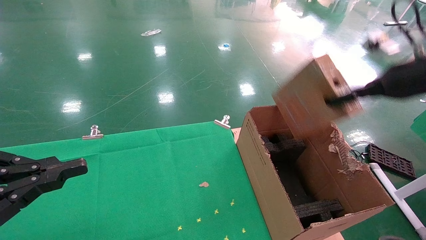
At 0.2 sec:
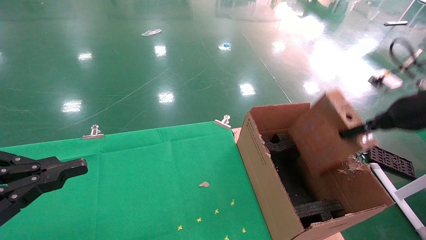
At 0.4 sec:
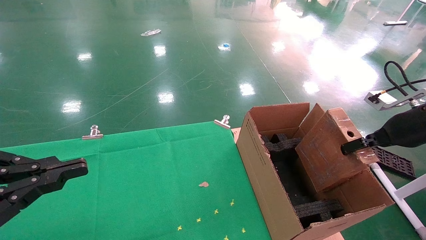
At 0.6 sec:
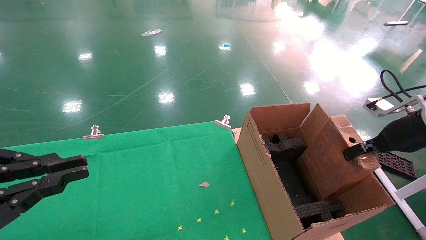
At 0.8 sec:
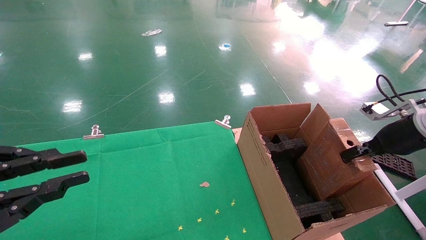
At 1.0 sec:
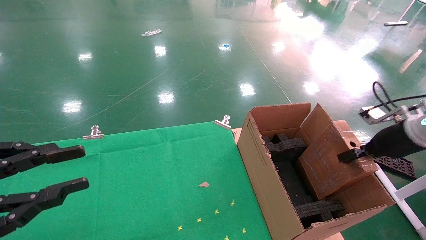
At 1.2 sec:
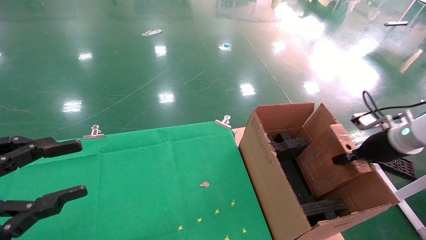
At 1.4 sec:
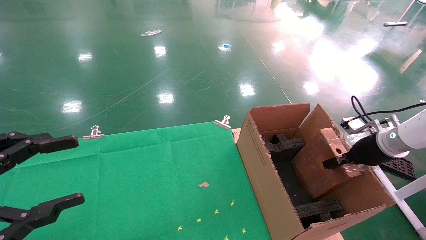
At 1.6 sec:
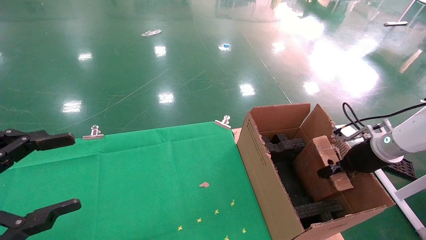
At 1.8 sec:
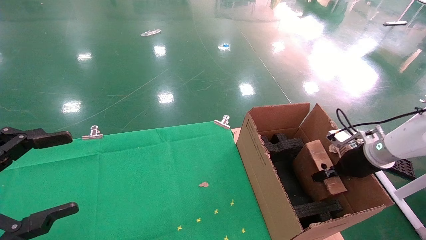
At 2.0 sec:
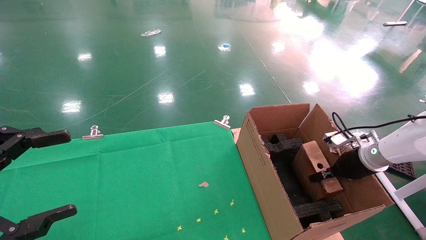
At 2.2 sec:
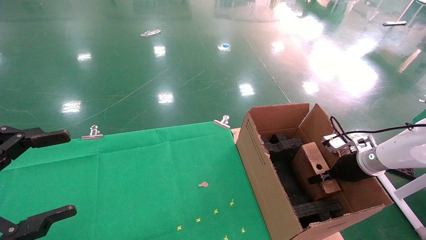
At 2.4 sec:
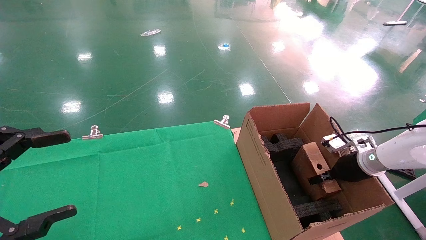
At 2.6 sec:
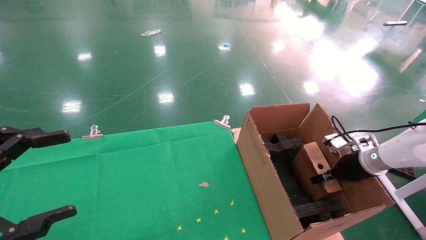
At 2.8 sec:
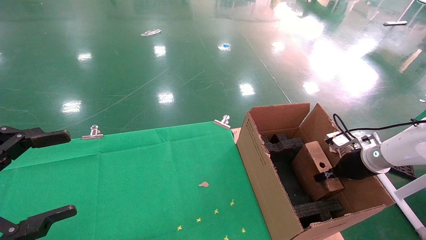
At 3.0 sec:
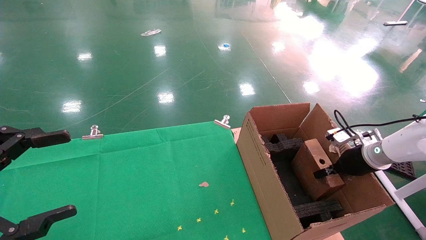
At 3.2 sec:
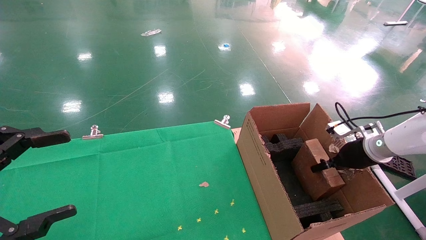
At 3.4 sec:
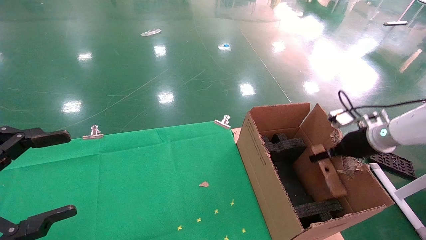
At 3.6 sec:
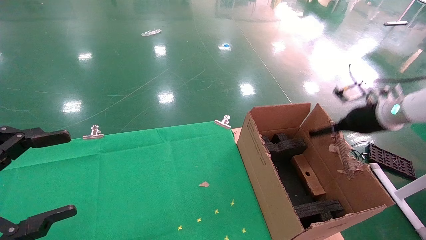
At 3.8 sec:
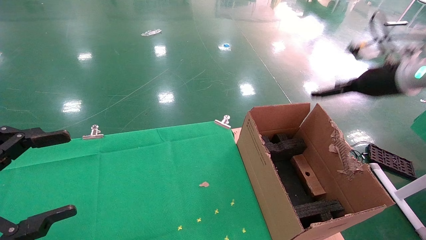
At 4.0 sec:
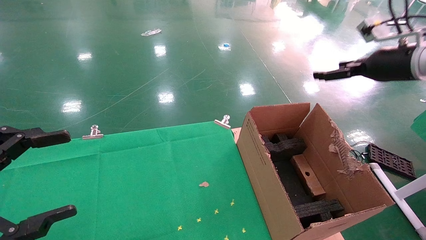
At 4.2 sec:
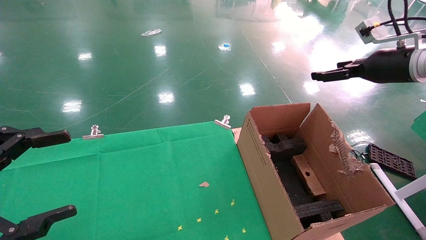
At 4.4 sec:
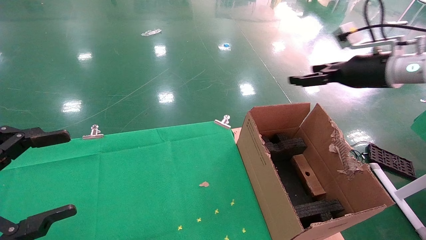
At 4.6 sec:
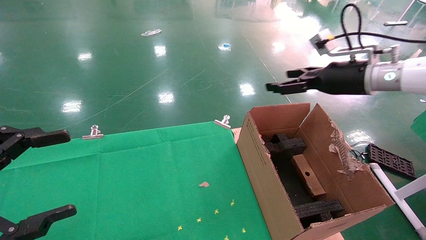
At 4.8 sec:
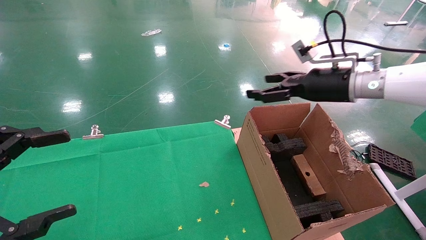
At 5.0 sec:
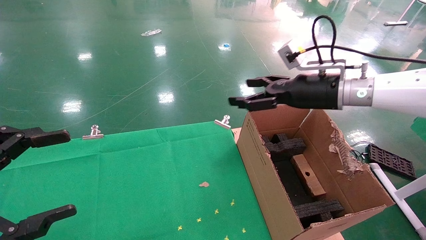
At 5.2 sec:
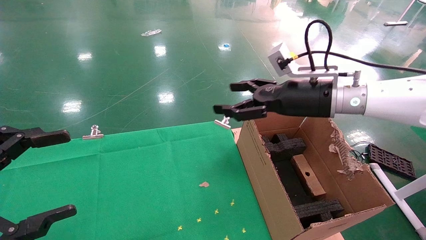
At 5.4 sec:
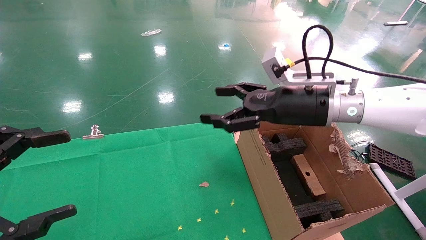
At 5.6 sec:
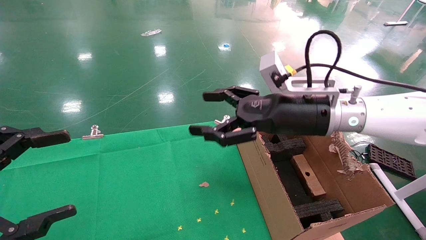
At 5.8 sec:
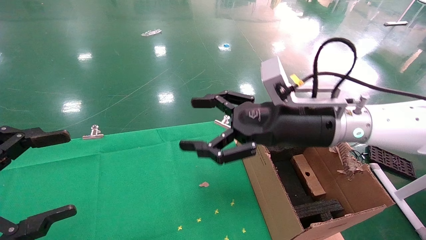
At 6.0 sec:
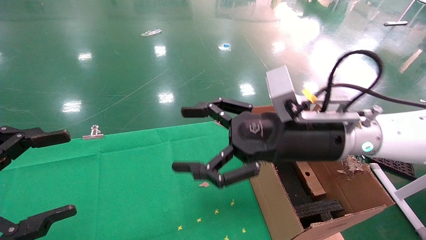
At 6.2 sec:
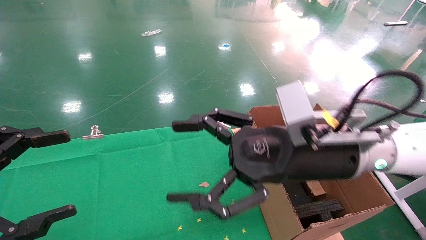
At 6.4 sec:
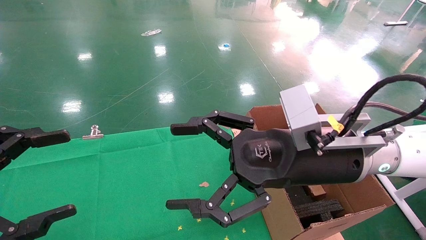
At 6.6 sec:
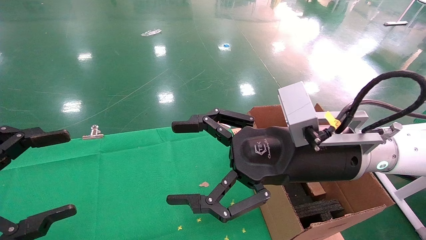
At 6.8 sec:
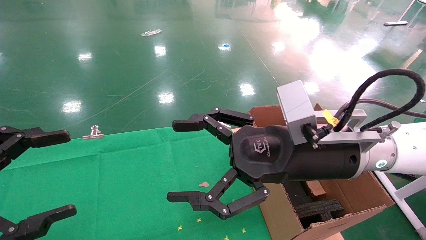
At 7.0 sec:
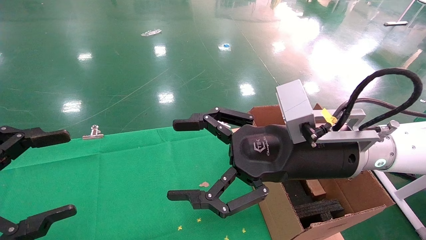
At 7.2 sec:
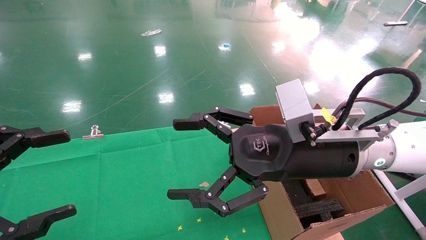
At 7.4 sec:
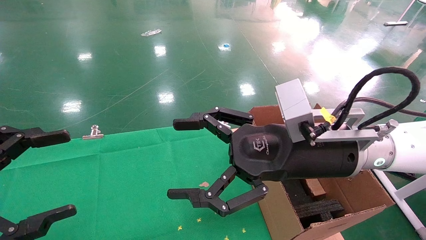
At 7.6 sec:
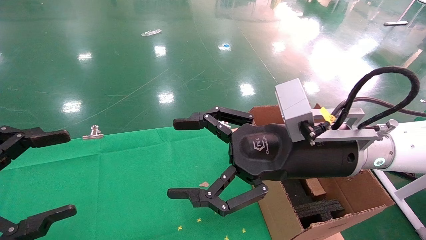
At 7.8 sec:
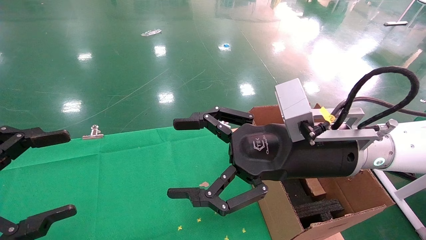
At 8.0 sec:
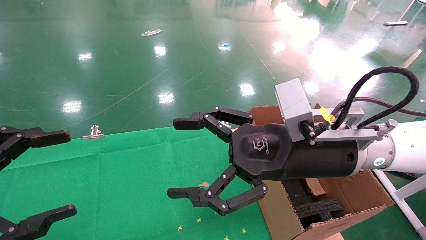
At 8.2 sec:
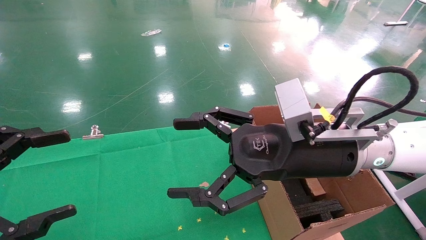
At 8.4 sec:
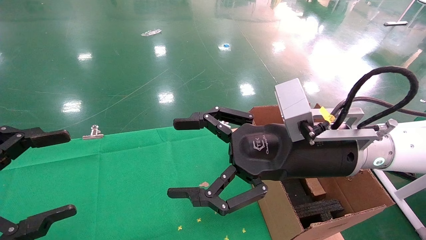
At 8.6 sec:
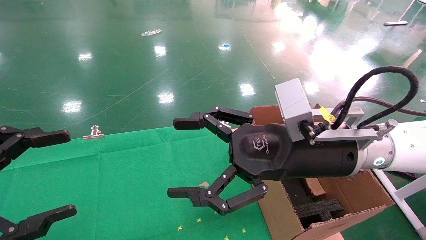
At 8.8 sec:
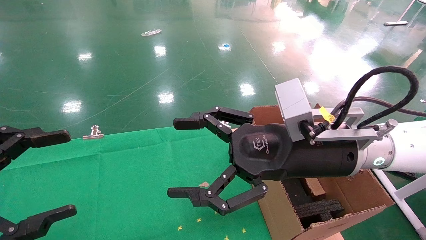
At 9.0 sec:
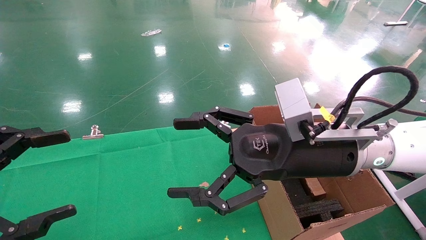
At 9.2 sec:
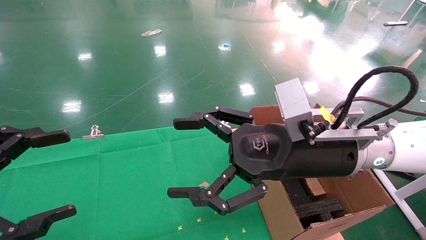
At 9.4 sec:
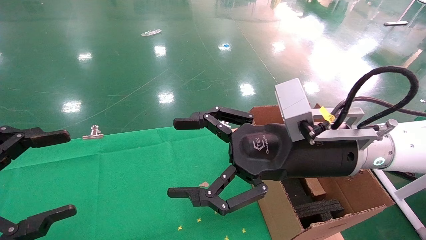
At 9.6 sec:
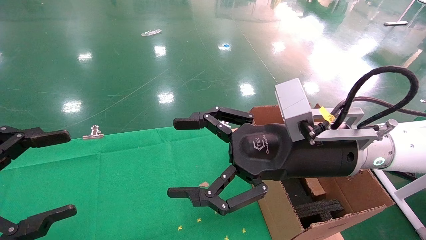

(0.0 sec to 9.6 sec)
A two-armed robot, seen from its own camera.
Task of the whole recording: using a robotic arm to pick up a cardboard box and palace it the carton.
Step, 0.0 sec - 3.6 sec: Place the mouse and the power cord paper box into the container.
0.0 sec - 1.6 sec: The left gripper opens its fingers; the right gripper travels downward by about 20 cm.
1.6 sec - 3.2 sec: The grippers move only a little.
3.2 sec - 4.8 sec: The right gripper goes some 20 cm upward and to the left, and opens up.
4.8 sec - 6.4 sec: The right gripper heads to the left and backward, covering some 20 cm.
6.4 sec - 9.6 sec: Neither gripper changes place.
